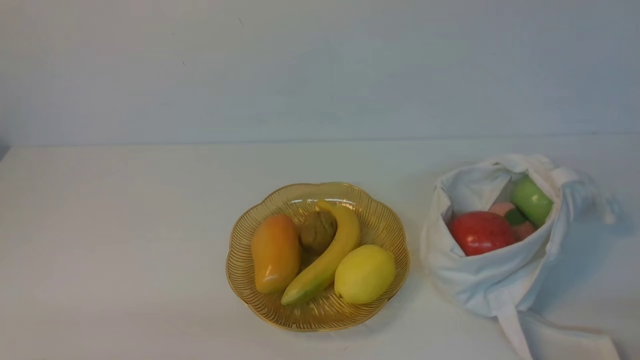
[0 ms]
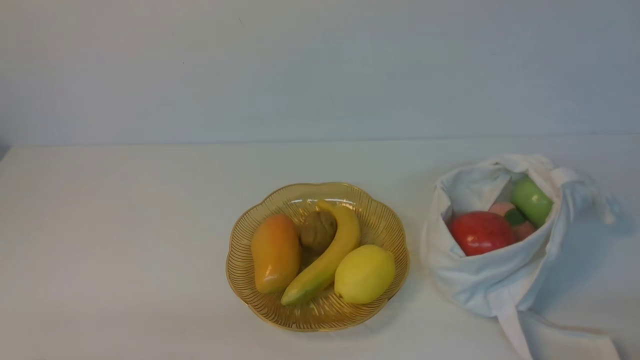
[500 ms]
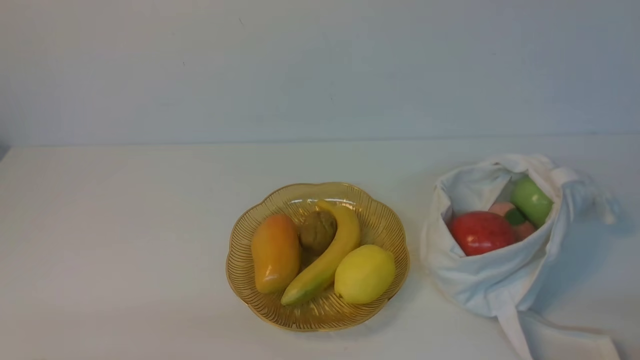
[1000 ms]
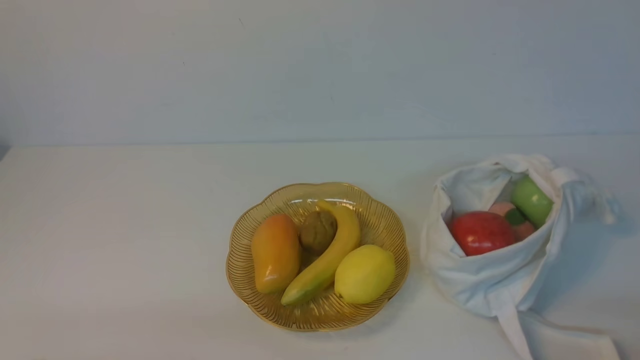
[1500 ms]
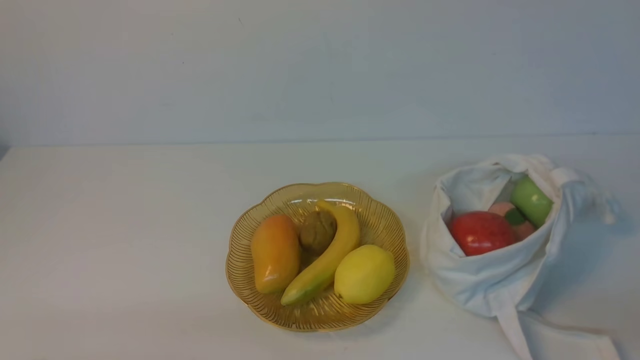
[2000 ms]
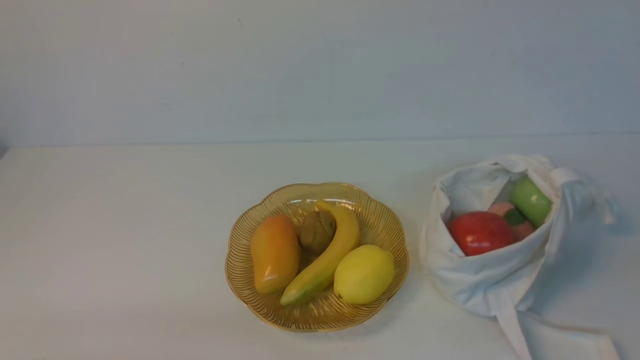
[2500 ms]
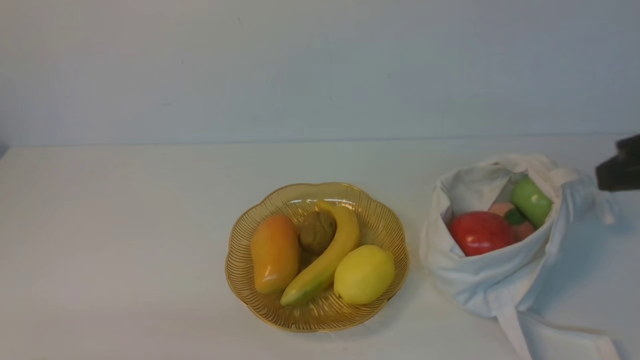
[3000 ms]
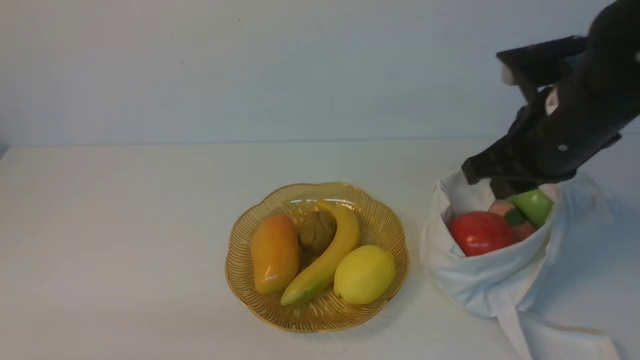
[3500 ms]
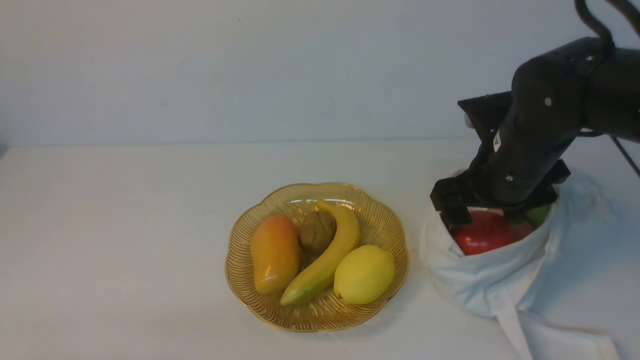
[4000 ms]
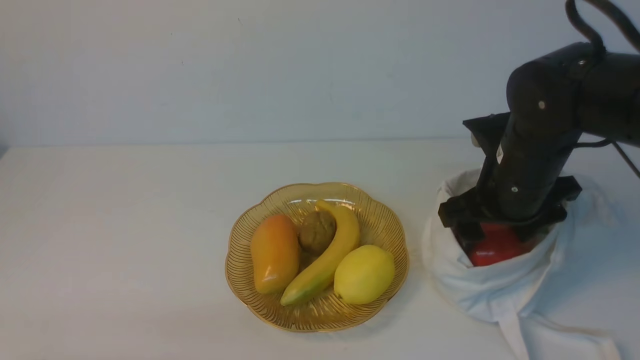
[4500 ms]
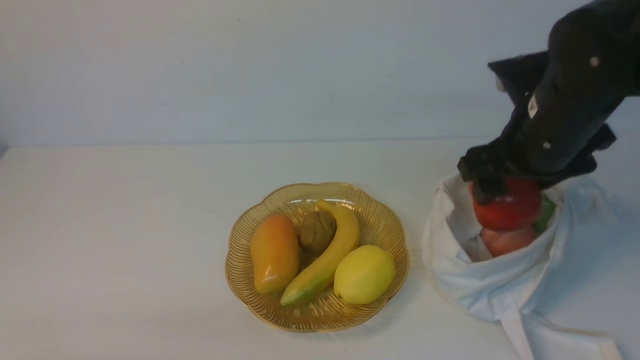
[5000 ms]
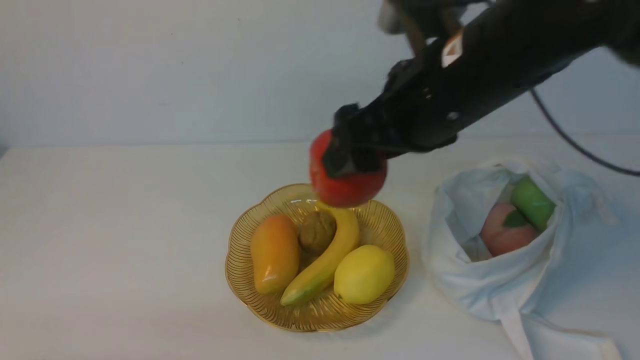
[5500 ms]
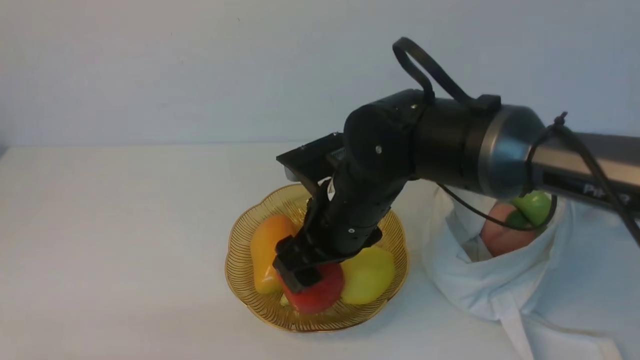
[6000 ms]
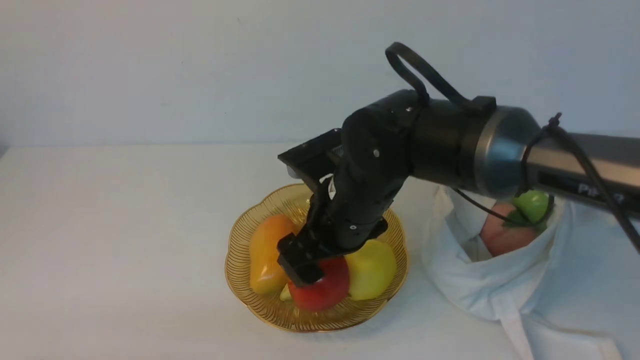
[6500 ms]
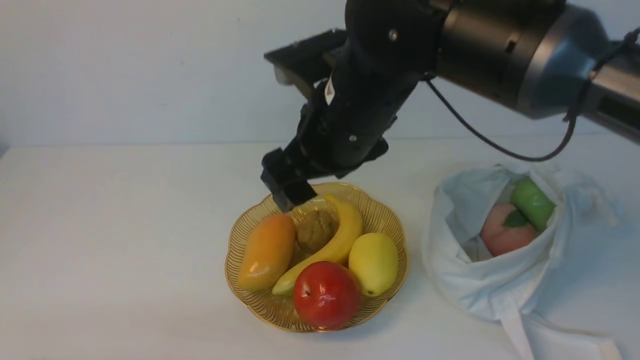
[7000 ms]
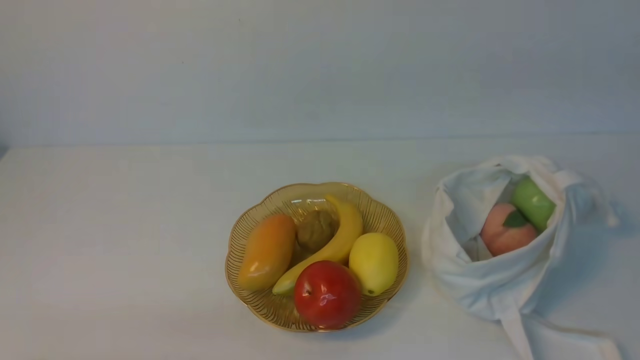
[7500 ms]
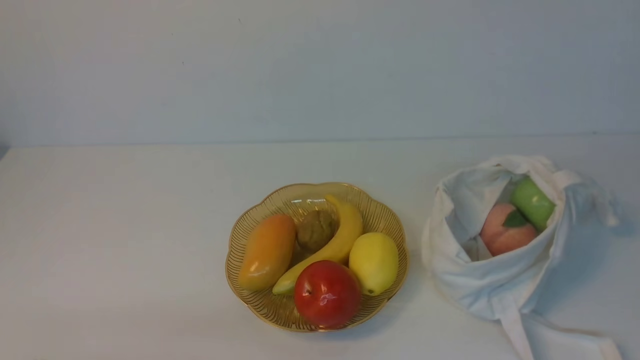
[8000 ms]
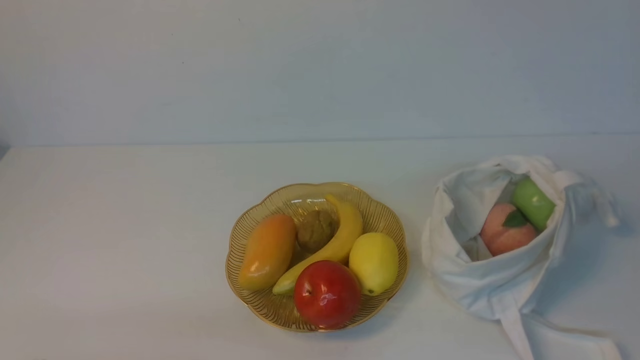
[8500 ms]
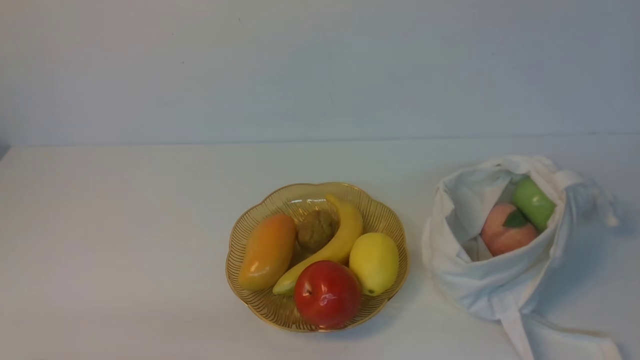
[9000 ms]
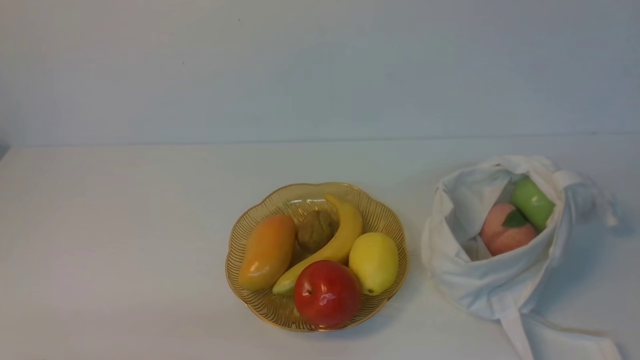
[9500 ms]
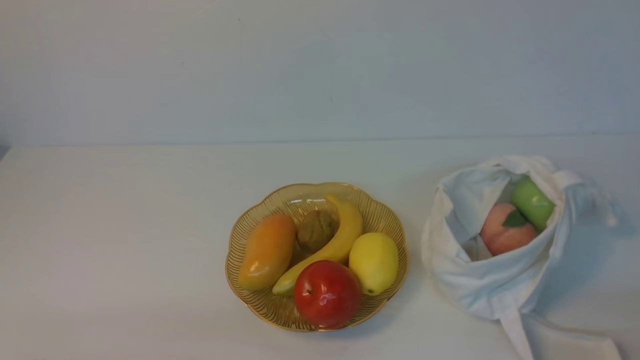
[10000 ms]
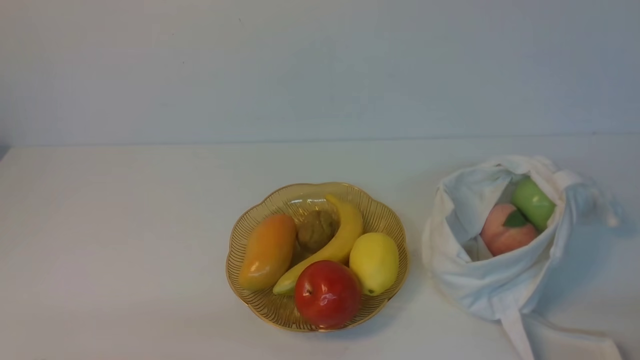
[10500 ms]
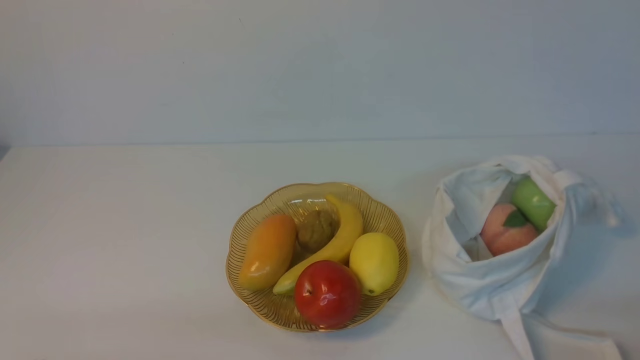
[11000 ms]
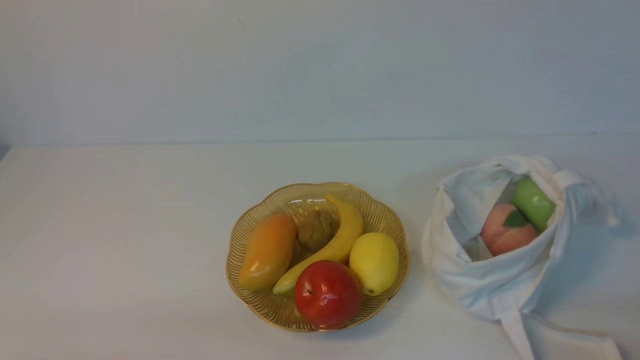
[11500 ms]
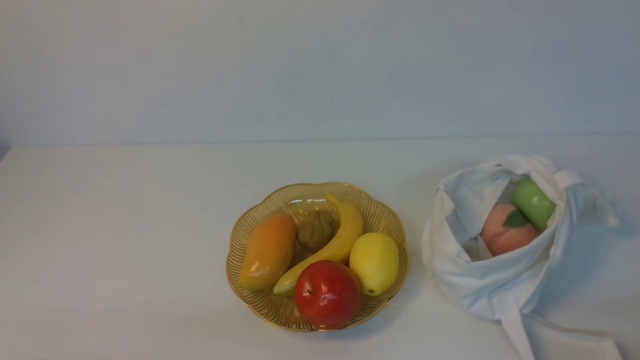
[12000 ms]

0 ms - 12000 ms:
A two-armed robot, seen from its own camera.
Step, 0 ms - 4500 ms: use the right arm to grab an apple from the bag.
Step, 5000 ms - 6500 ms: use the right arm to put the apple into the empty plate on the left.
2000 ms - 4000 ms: The right gripper is displaced forward and to the left by some 30 cm, and opens its fingers.
4000 ms - 6000 ms: The right gripper goes about 15 cm to the left.
6000 ms - 8000 ms: The right gripper shifts about 40 cm upward, to the right and backward, and closes.

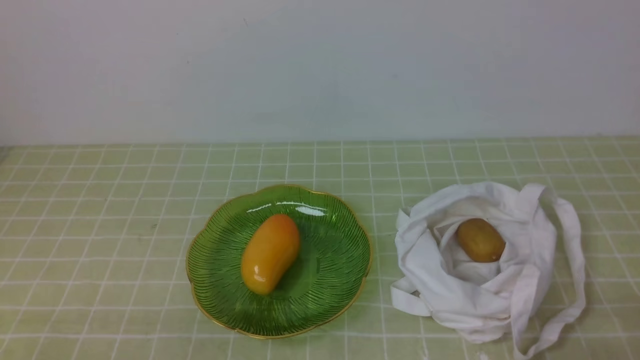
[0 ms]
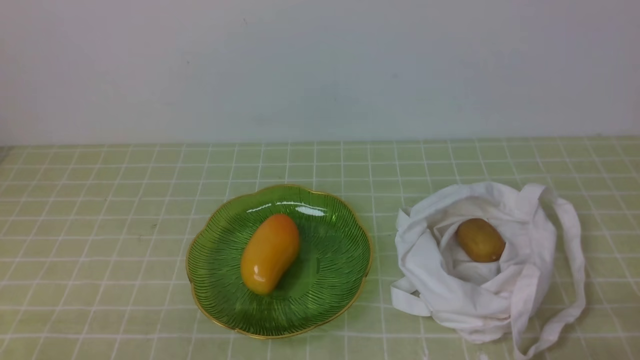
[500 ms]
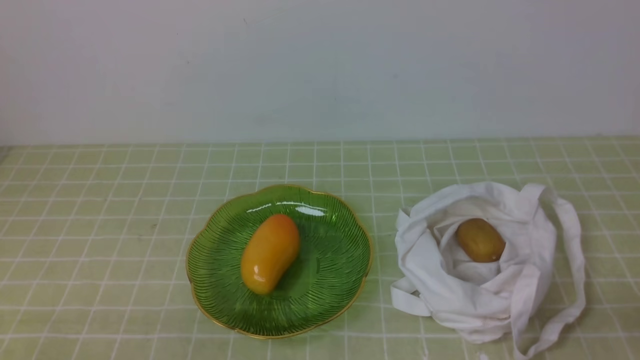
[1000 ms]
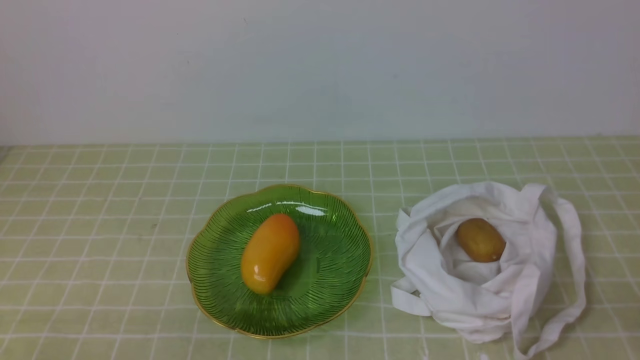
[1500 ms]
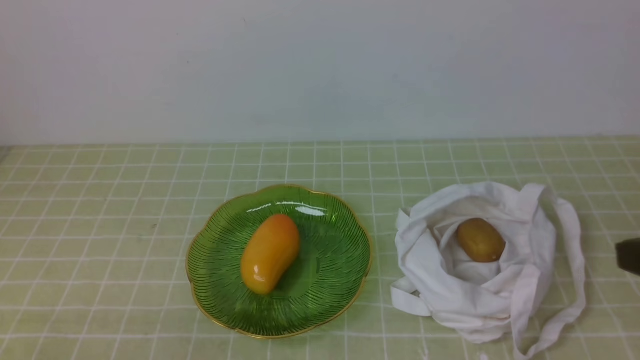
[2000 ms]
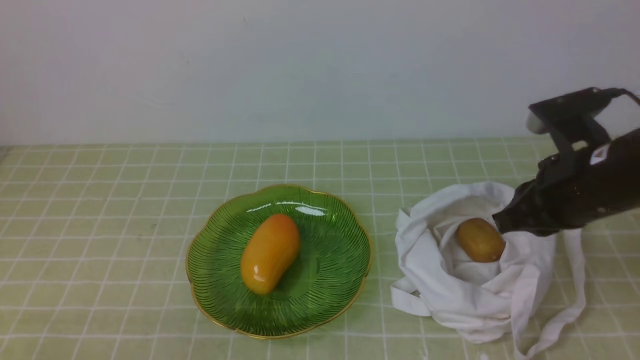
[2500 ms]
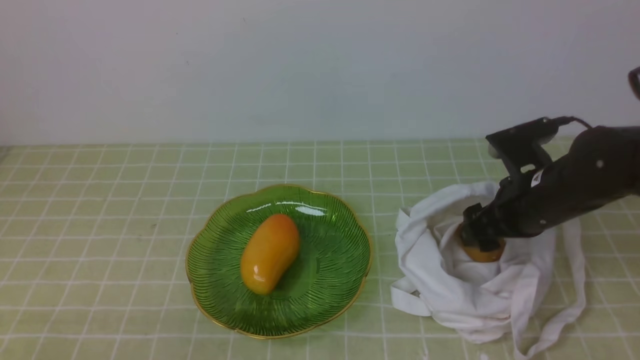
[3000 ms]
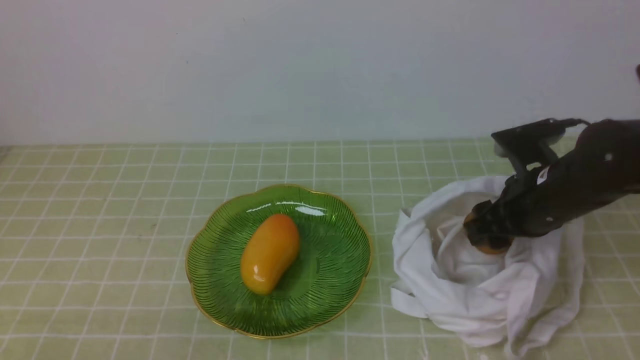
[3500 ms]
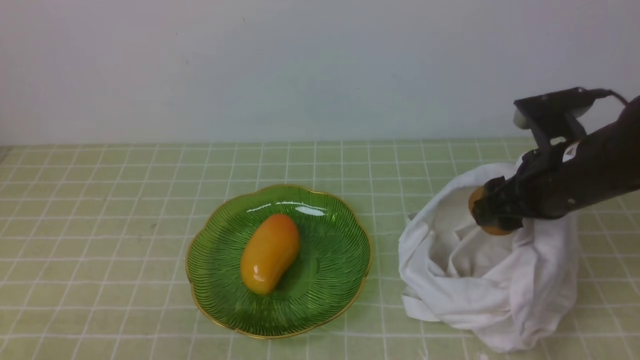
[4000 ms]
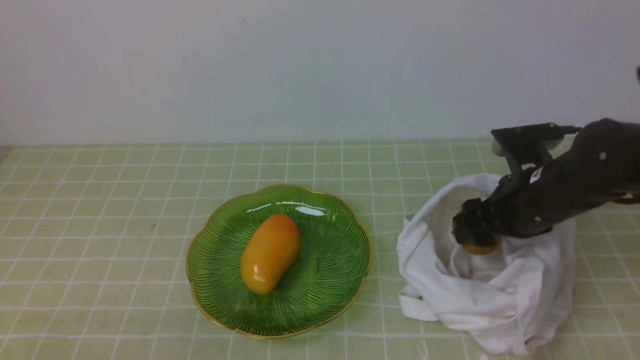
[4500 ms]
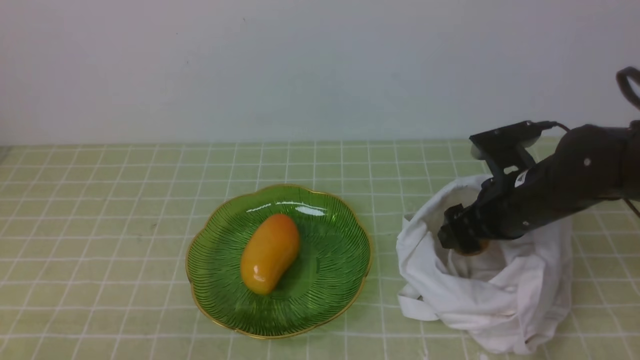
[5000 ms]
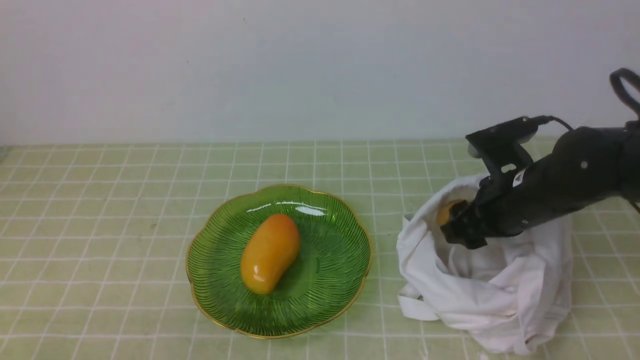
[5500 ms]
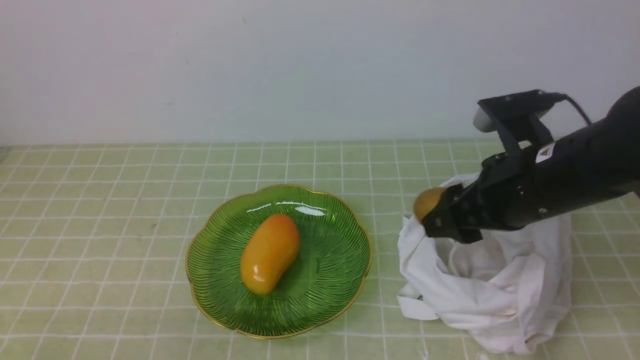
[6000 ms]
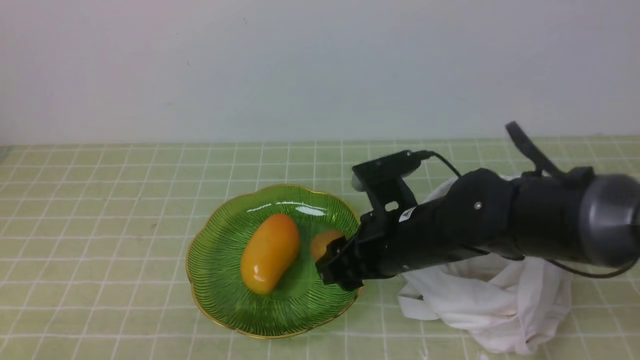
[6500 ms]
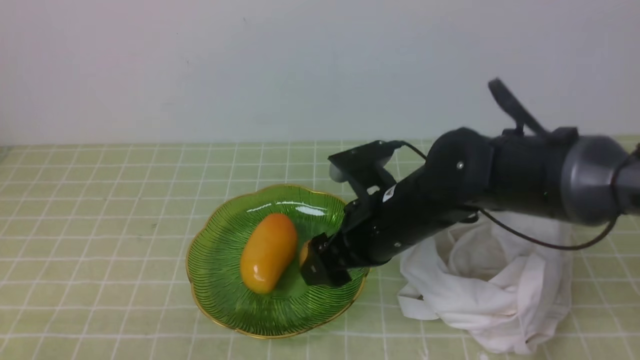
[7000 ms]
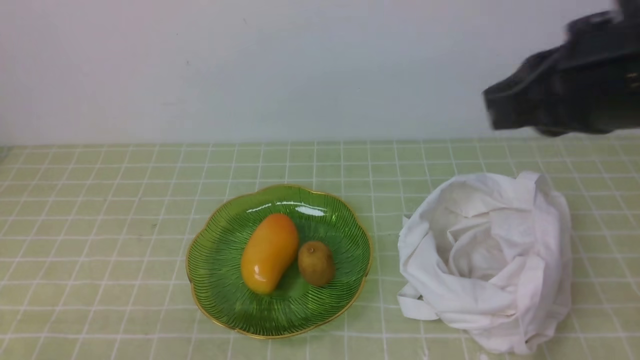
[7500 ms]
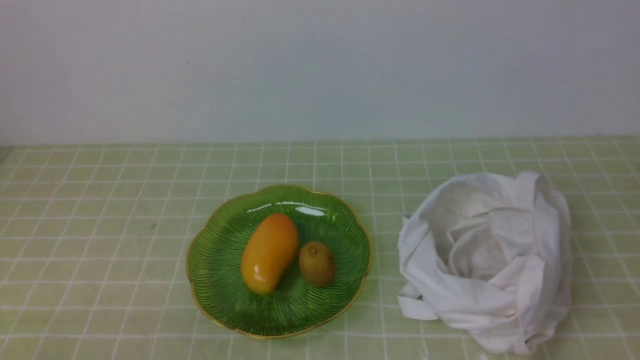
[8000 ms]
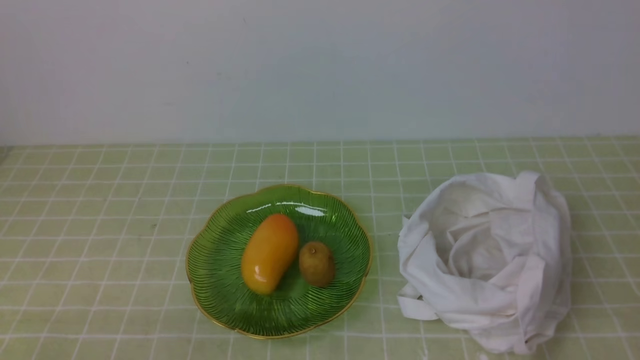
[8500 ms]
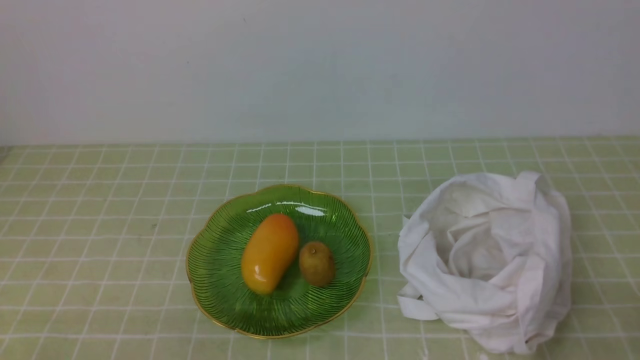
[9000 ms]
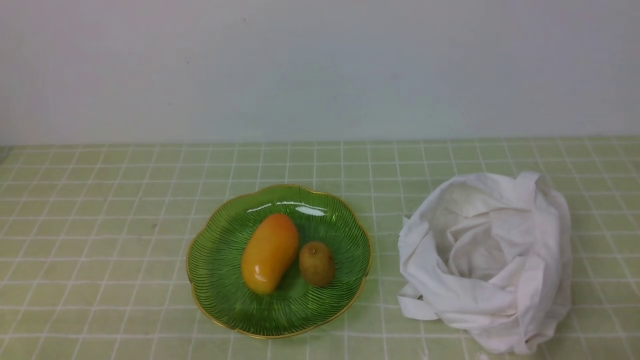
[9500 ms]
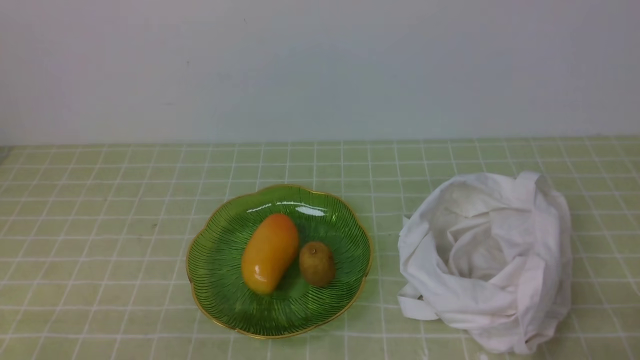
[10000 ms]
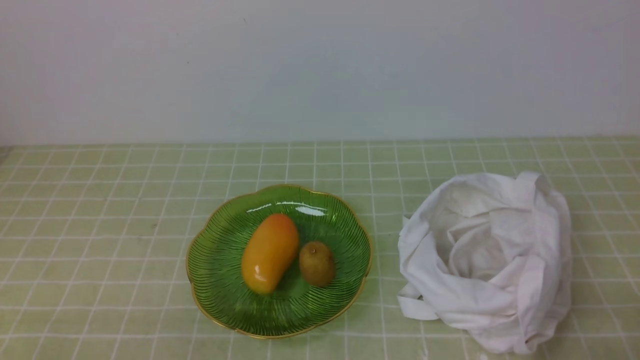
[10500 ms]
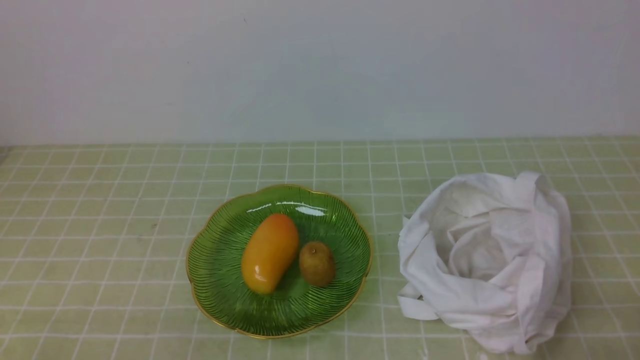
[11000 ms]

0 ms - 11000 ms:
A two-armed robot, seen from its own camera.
Step, 0 ms - 3500 ms: use the right arm to grab a kiwi from the bag.
Step, 4000 ms - 6500 ms: use the right arm to put the kiwi into the empty plate on the left.
2000 ms - 3500 ms: The right gripper travels forward and downward by about 20 cm, and opens its fingers.
3500 ms - 5500 ms: The grippers move only a little.
5500 ms - 7500 ms: The right gripper goes up and down, approximately 20 cm each way, reversing 2 times, and closes up.
7500 ms - 9000 ms: The right gripper shifts roughly 25 cm downward, backward and to the right.
